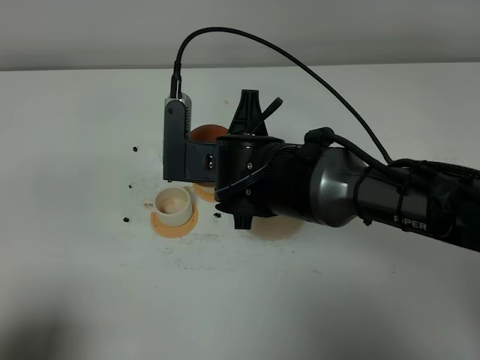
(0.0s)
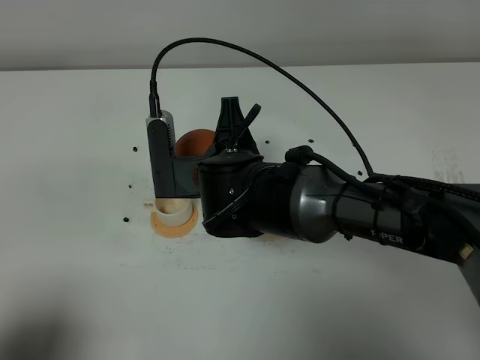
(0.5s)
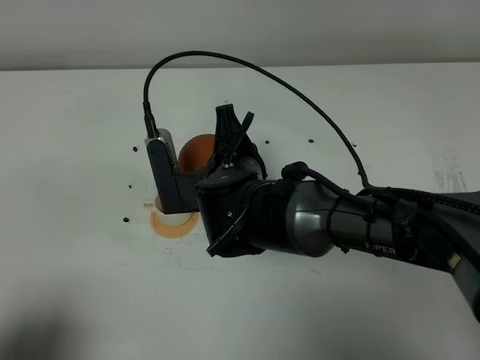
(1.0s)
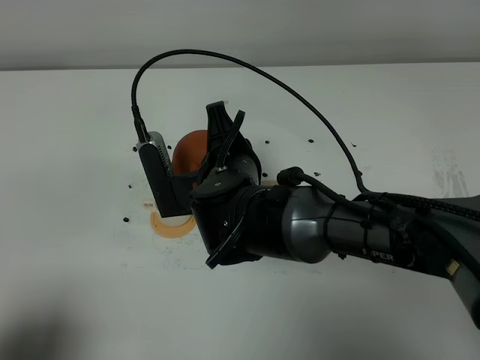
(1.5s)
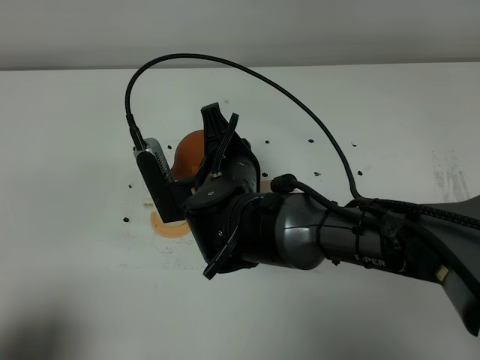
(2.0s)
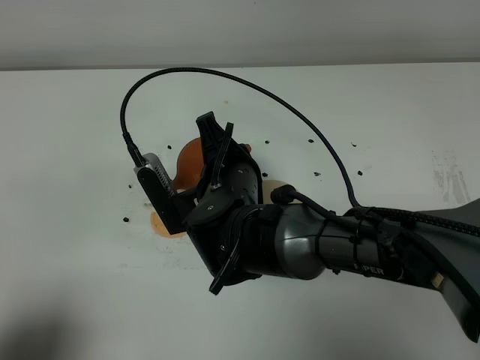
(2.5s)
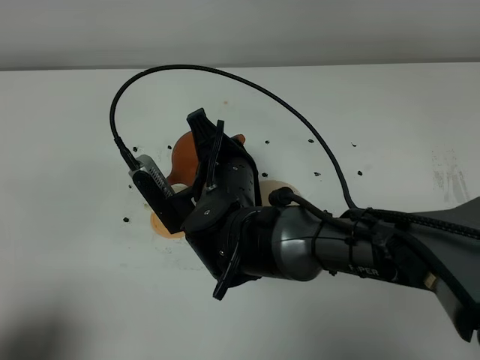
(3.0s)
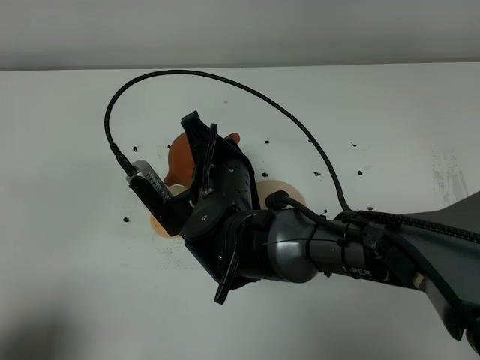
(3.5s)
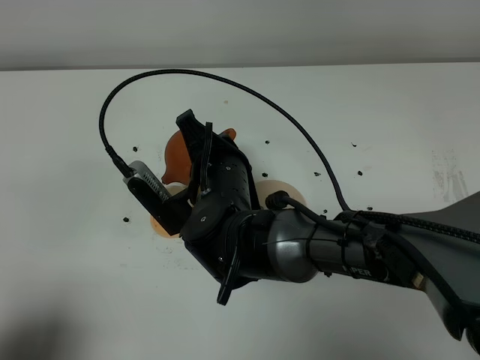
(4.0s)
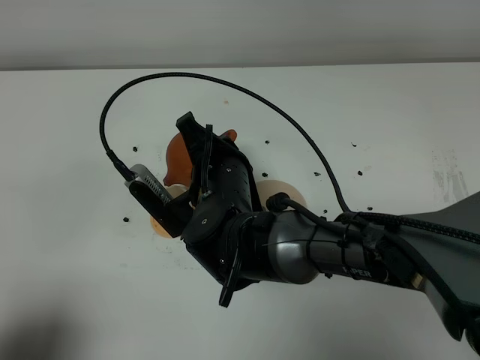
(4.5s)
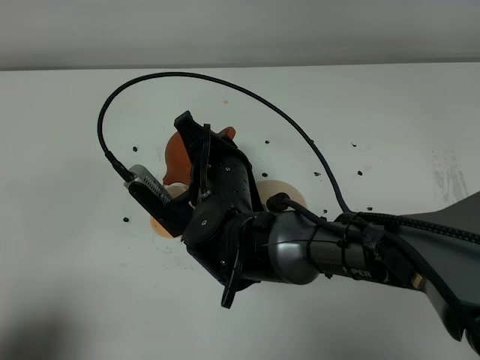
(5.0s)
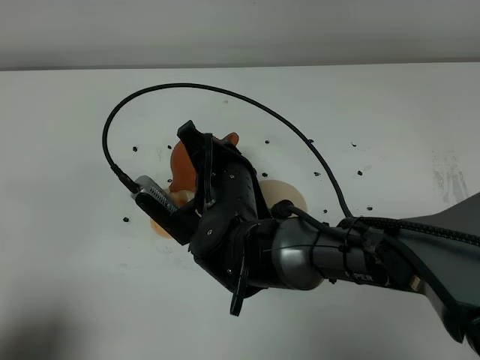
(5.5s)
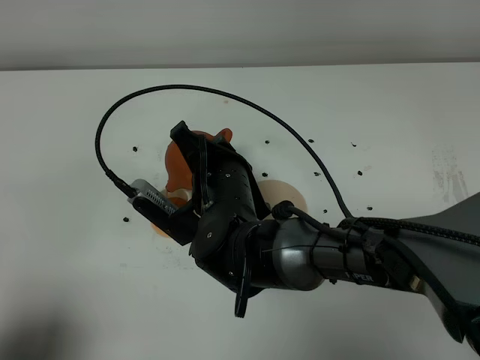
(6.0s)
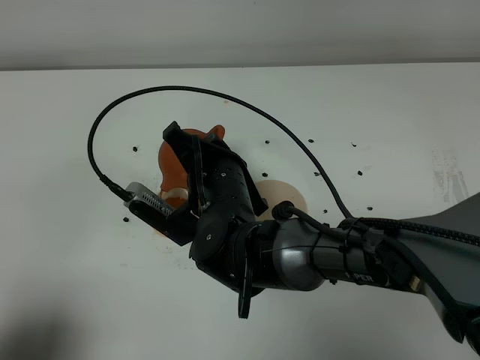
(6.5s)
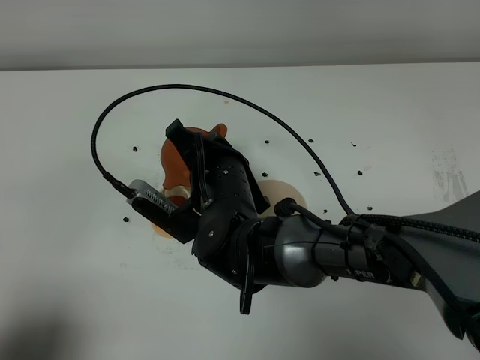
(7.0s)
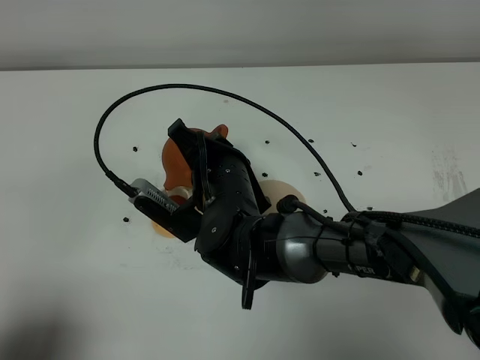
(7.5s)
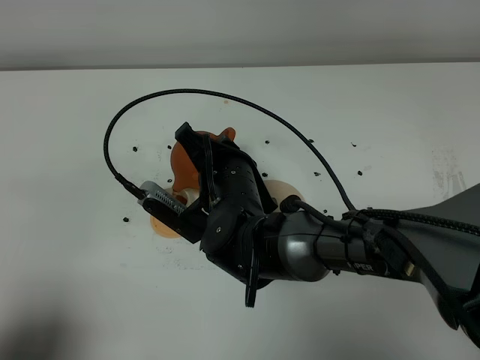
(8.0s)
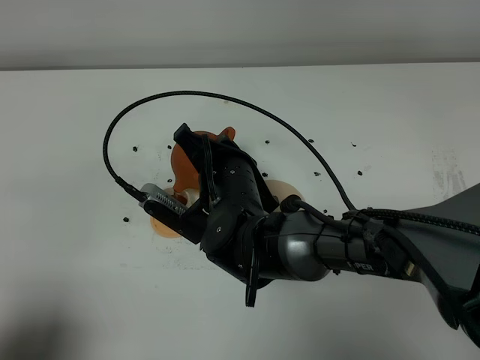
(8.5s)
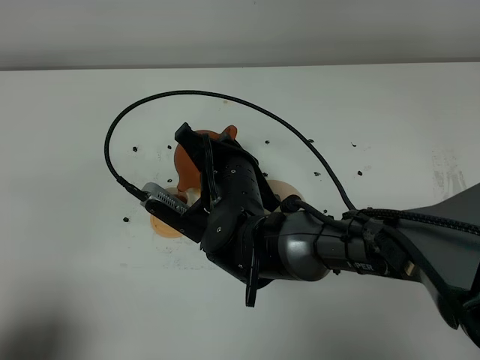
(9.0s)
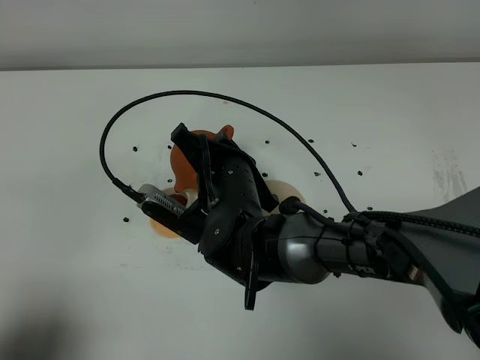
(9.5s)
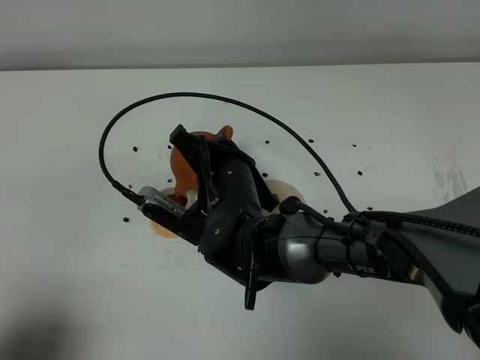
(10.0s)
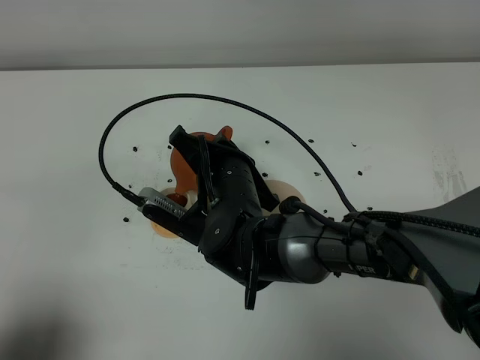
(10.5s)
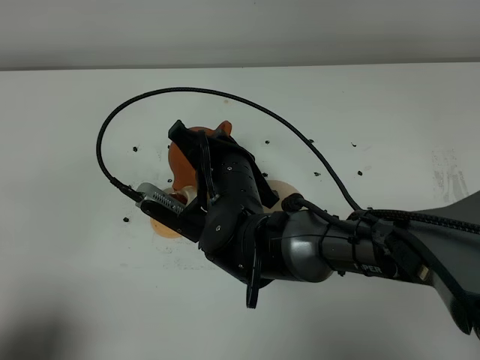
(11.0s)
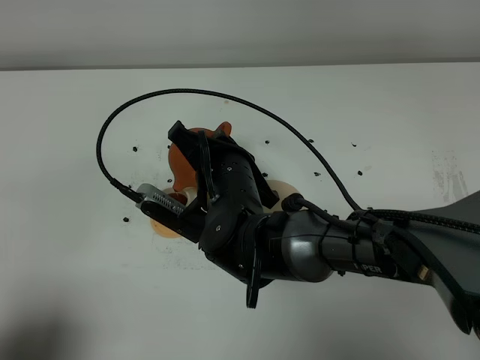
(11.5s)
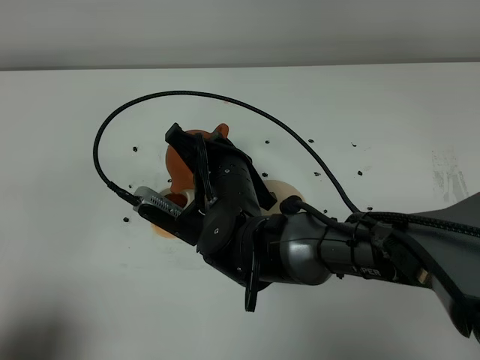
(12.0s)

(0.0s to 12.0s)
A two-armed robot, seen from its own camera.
Task of the whole recording: grasp the brown teapot and pour the tea into the two white teacups one by one, put the brown teapot back in its original place.
2.0s - 4.0s: The grippers make only small movements.
4.0s - 8.0s: The grippers move only a little.
8.0s - 12.0s: Neither gripper changes place.

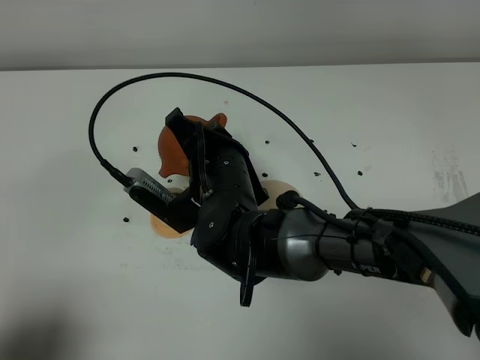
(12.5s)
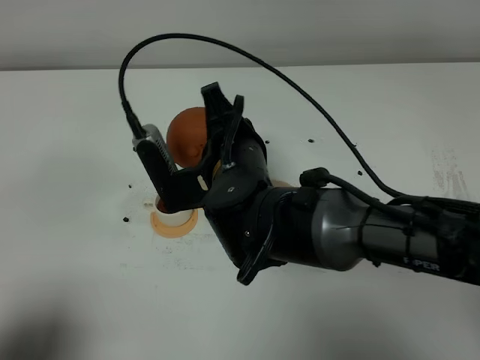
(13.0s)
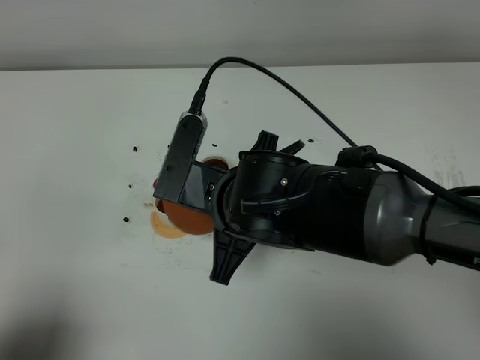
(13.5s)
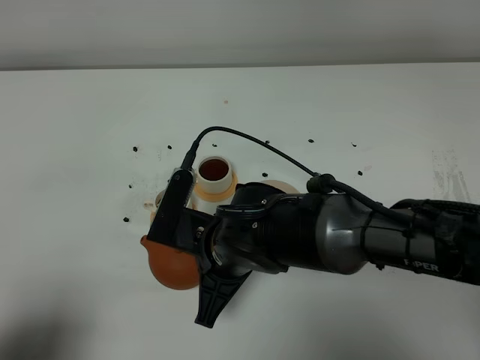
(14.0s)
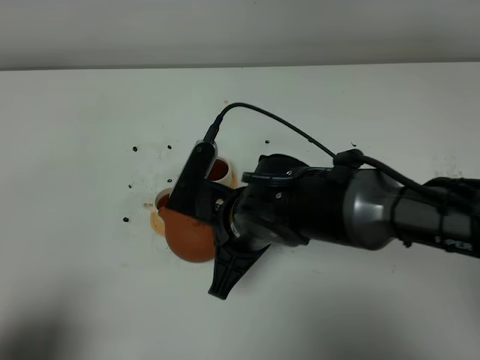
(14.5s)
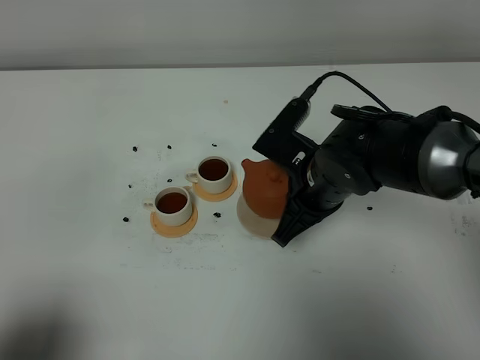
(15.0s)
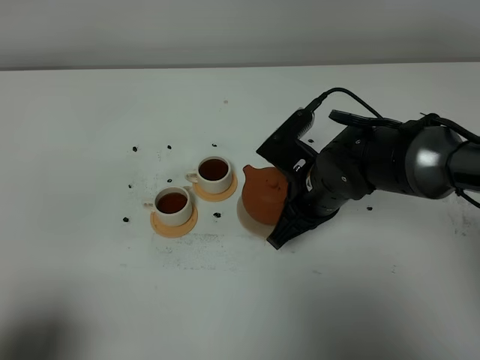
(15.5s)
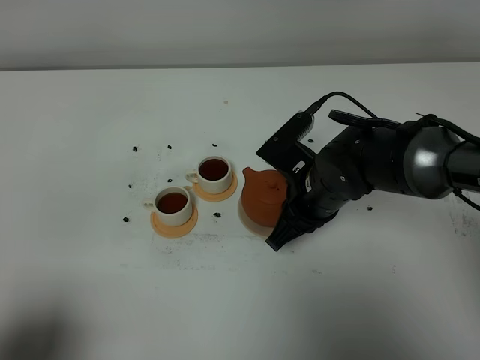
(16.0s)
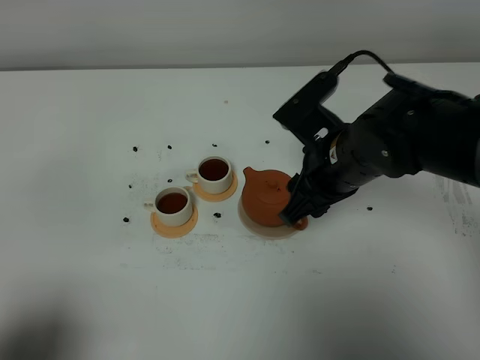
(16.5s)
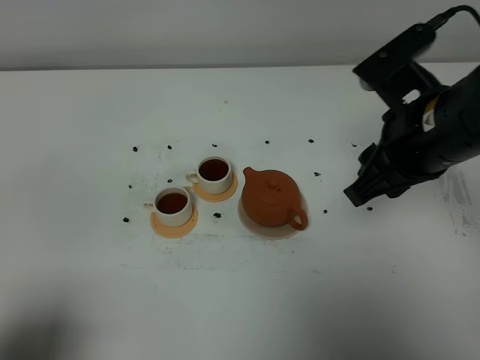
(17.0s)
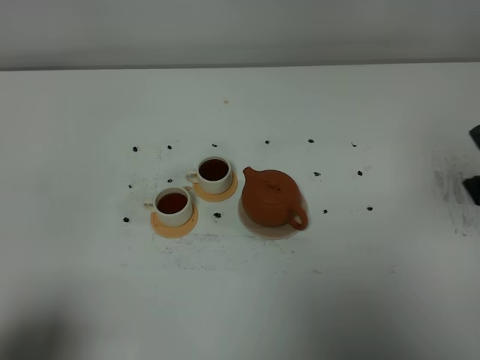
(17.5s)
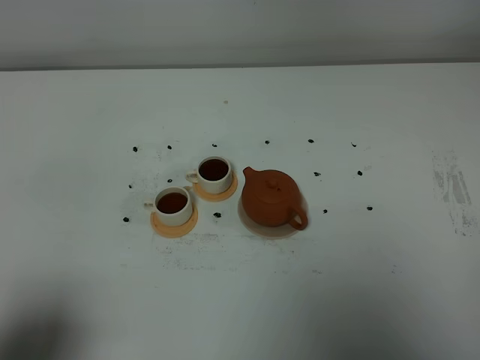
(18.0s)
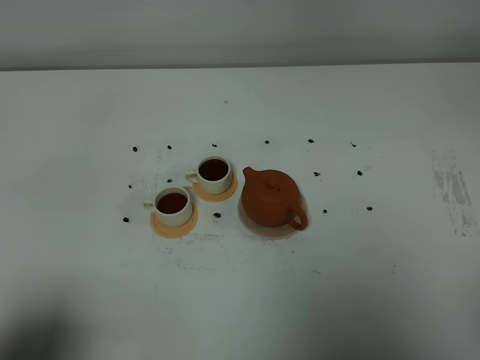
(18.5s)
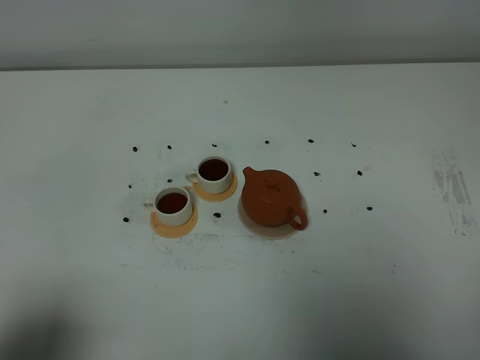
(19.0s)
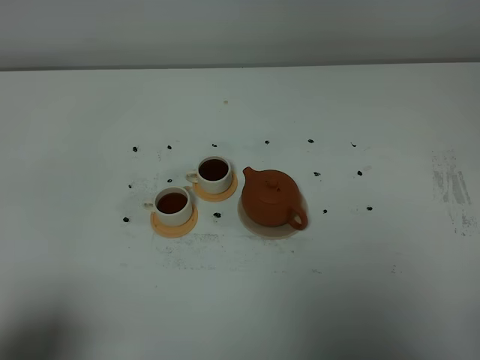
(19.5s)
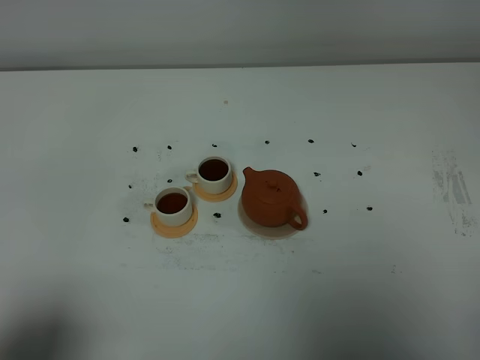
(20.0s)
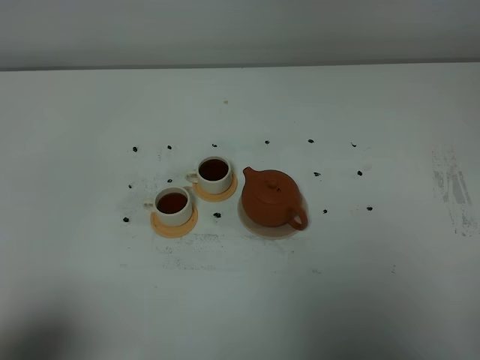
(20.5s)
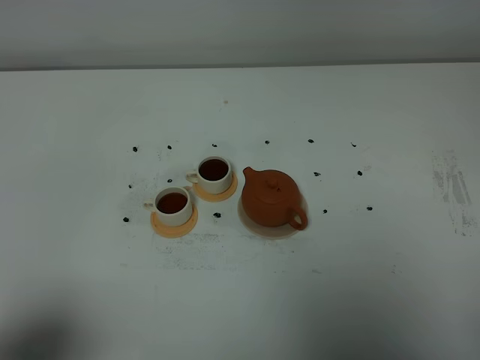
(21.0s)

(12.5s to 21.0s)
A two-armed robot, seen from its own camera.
Task of the whole recording: grasp the brown teapot and pour the tea into the two white teacups one by one, put the brown teapot back in its original place.
12.5s - 14.5s: The right gripper ends up roughly 5 cm from where it was.
14.5s - 16.5s: The right gripper travels to the right and forward by roughly 10 cm, and opens up.
16.5s - 19.0s: The right gripper is displaced backward and to the right by about 35 cm, and closes.

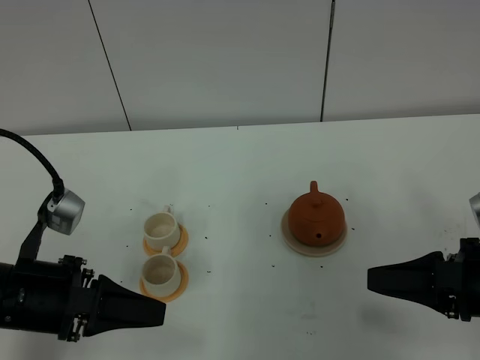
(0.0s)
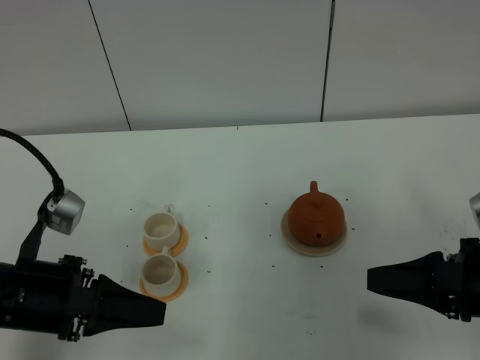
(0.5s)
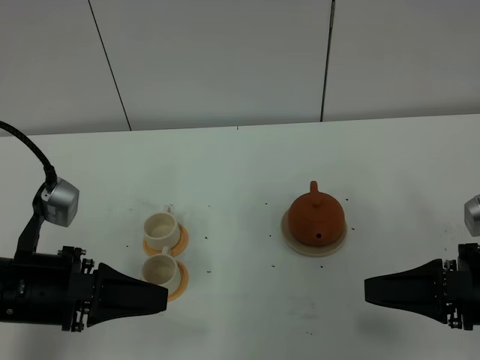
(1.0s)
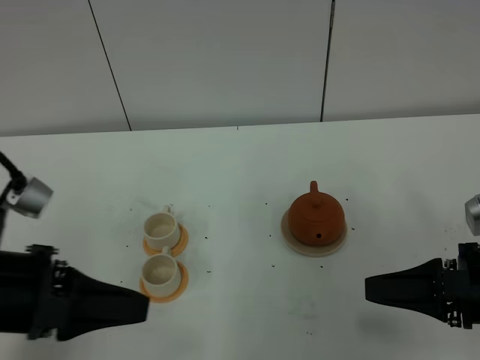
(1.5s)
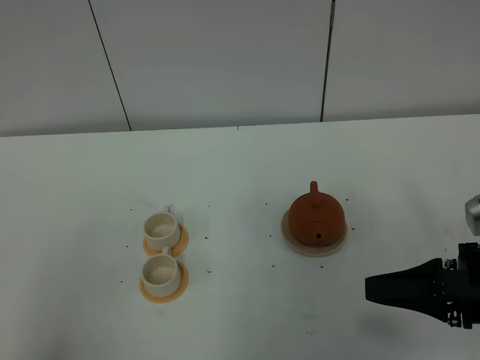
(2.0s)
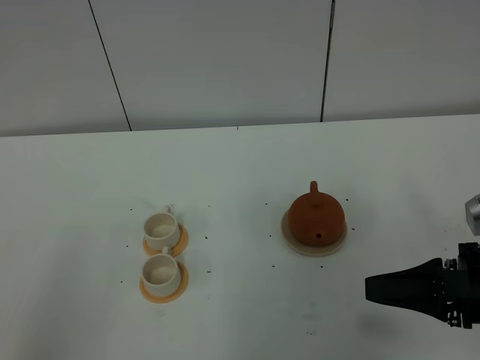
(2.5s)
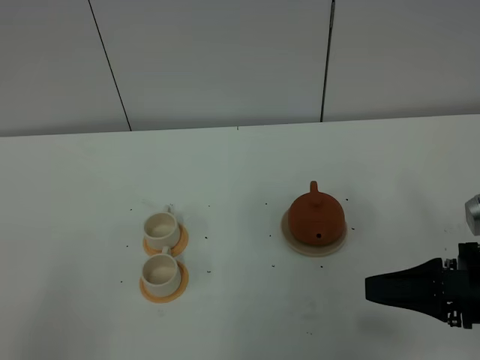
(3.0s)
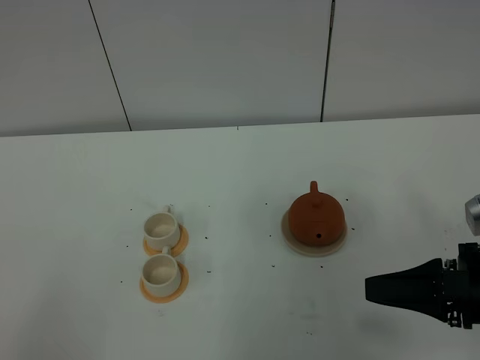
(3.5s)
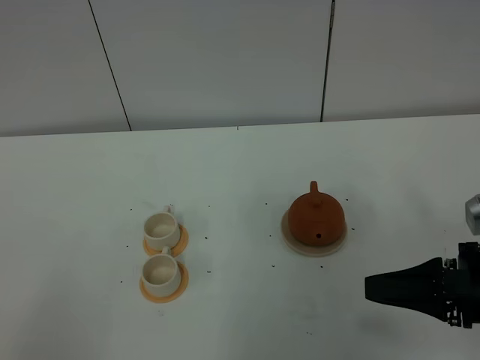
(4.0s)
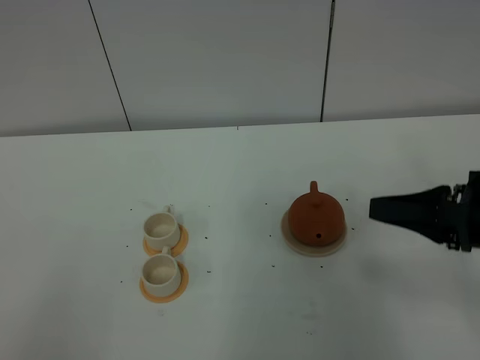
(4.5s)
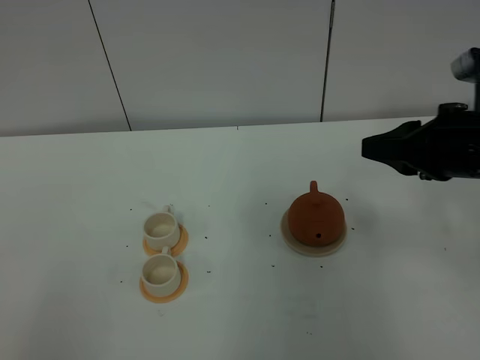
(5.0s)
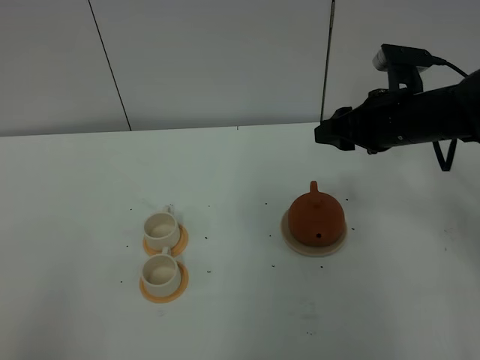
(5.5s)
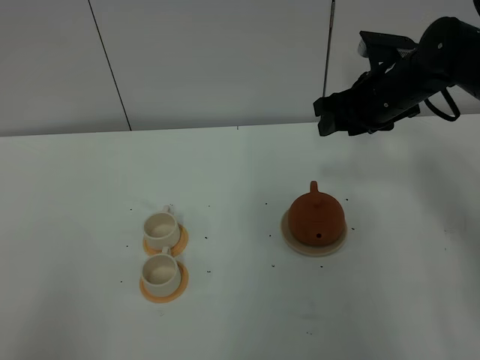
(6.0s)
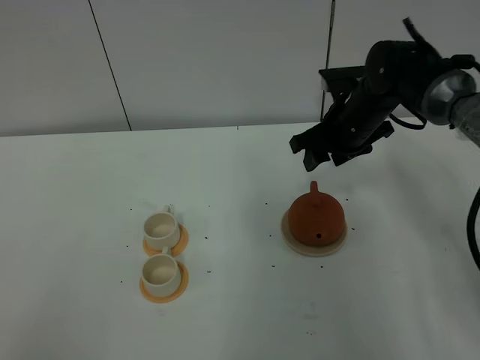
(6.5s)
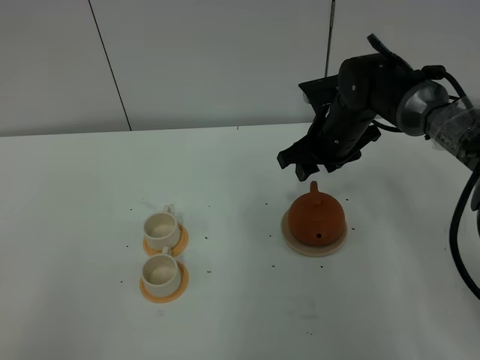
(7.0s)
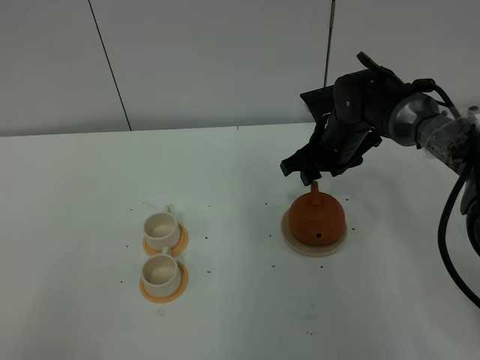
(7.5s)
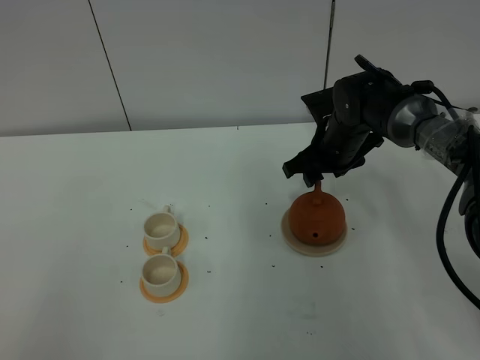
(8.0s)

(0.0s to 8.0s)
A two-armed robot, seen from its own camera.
Task of the whole recording: grasp the brown teapot and pour the tea into the two white teacups one by one, put the brown teapot back in its original place.
0.0s - 2.0s: The left gripper heads backward, upward and to the left, covering approximately 20 cm.
4.0s - 6.0s: The right gripper is displaced forward by some 30 cm, and opens its fingers.
6.0s - 8.0s: The right gripper travels downward and to the left by approximately 10 cm.
